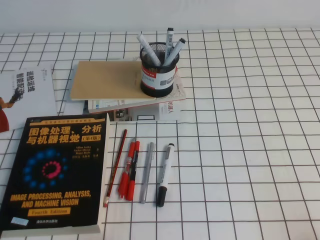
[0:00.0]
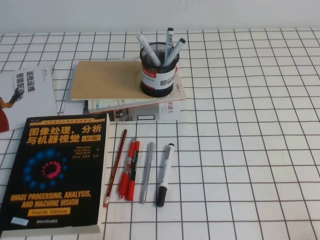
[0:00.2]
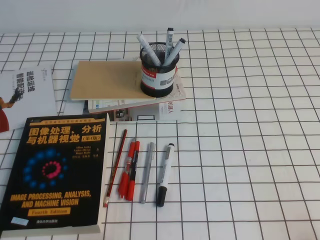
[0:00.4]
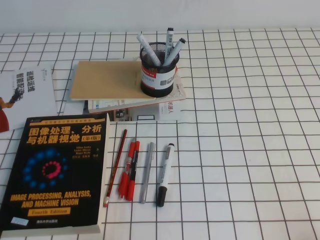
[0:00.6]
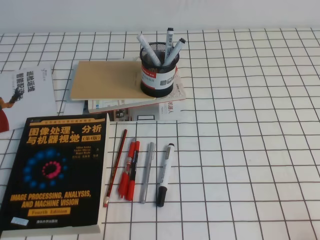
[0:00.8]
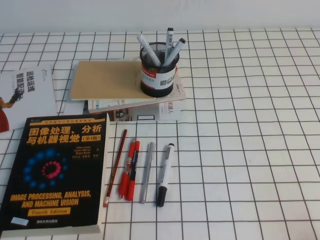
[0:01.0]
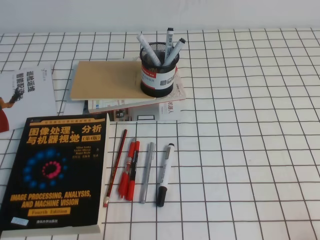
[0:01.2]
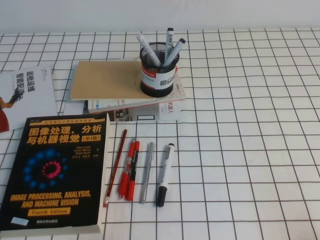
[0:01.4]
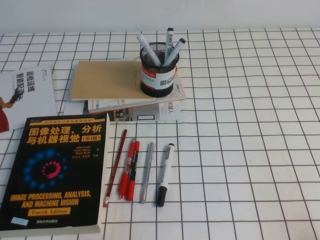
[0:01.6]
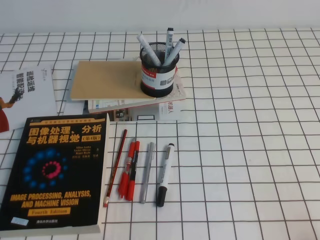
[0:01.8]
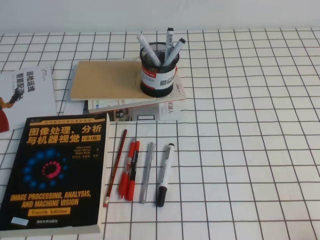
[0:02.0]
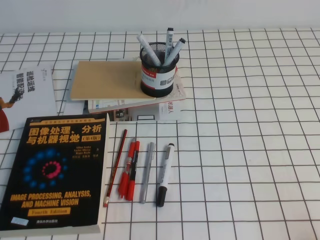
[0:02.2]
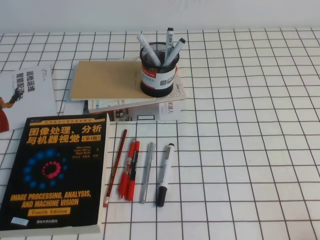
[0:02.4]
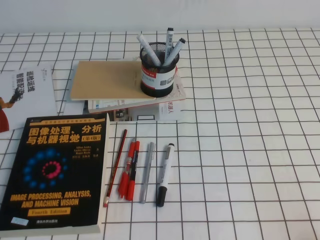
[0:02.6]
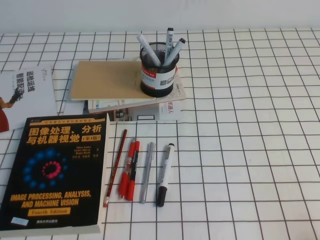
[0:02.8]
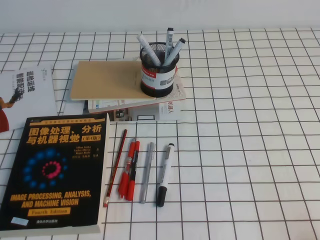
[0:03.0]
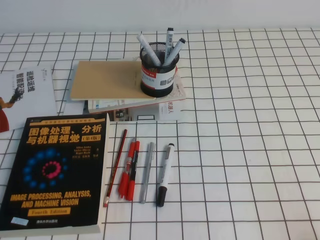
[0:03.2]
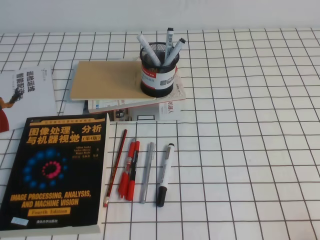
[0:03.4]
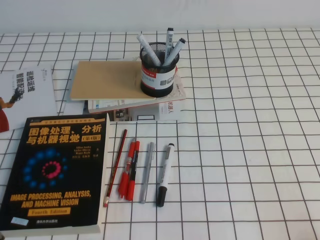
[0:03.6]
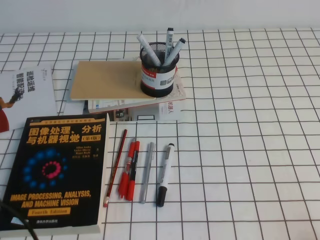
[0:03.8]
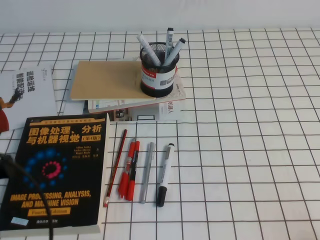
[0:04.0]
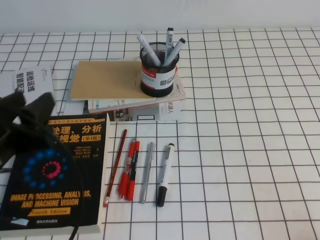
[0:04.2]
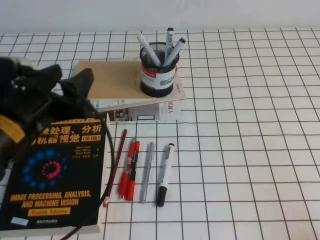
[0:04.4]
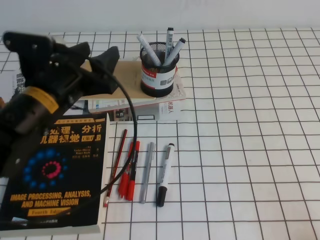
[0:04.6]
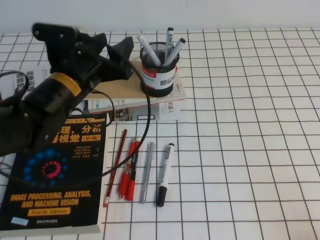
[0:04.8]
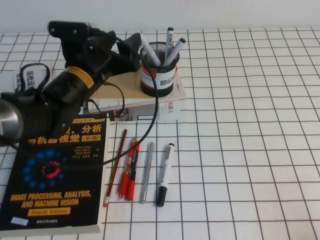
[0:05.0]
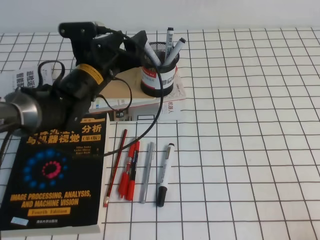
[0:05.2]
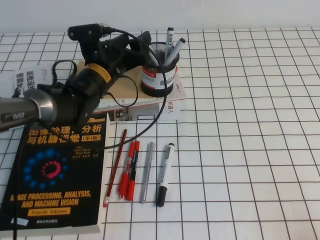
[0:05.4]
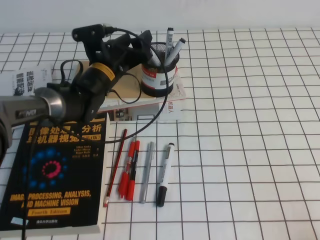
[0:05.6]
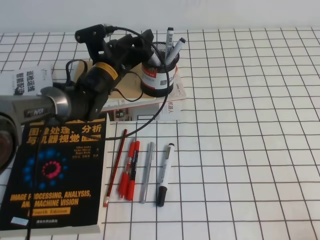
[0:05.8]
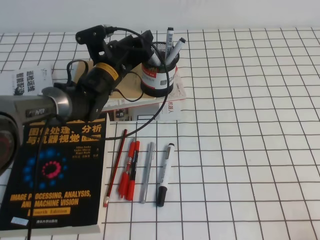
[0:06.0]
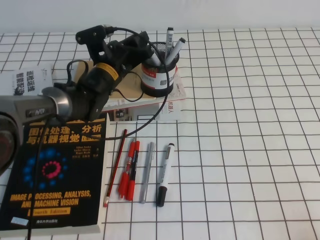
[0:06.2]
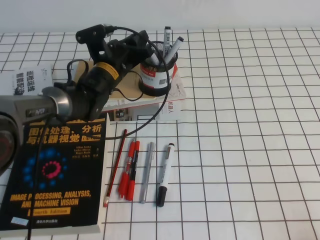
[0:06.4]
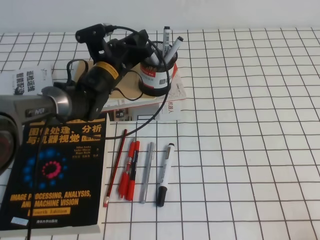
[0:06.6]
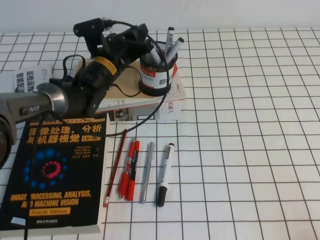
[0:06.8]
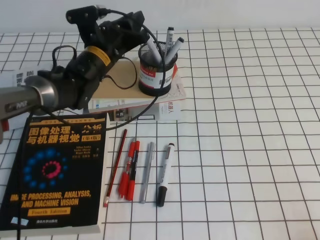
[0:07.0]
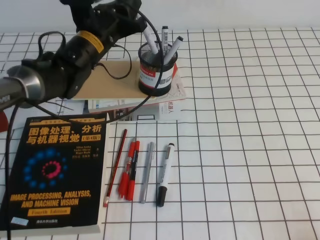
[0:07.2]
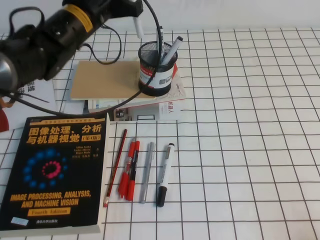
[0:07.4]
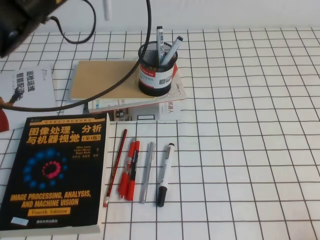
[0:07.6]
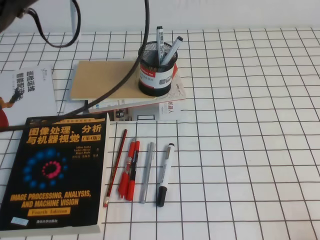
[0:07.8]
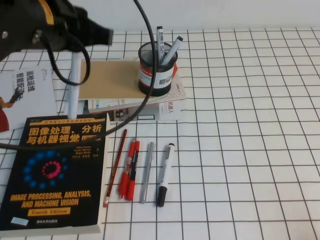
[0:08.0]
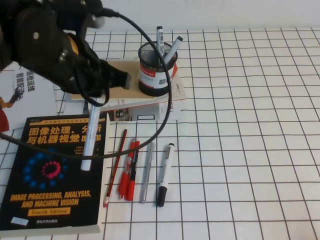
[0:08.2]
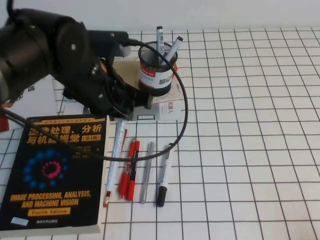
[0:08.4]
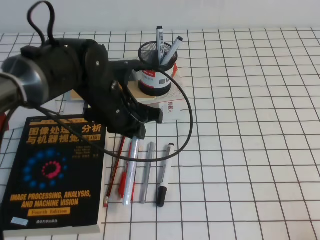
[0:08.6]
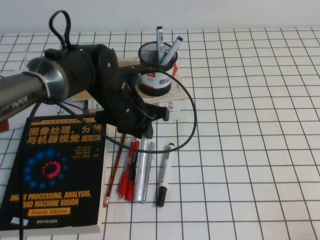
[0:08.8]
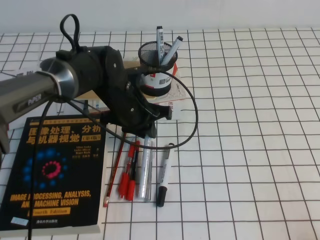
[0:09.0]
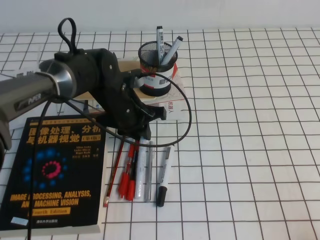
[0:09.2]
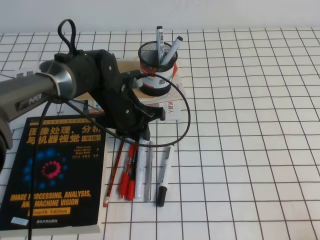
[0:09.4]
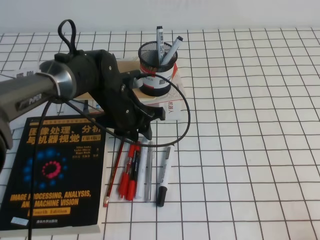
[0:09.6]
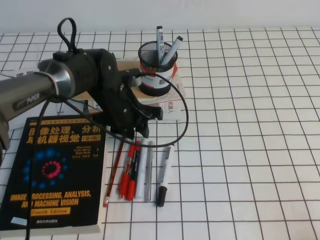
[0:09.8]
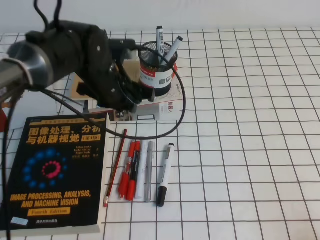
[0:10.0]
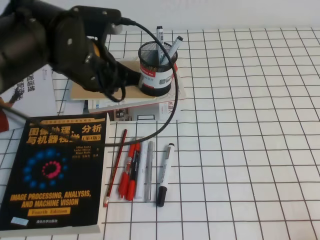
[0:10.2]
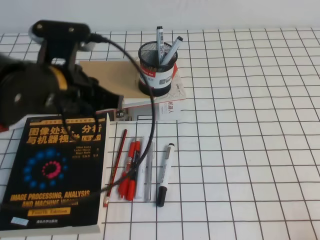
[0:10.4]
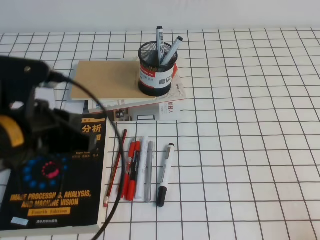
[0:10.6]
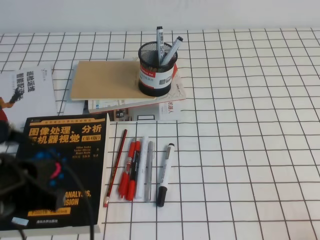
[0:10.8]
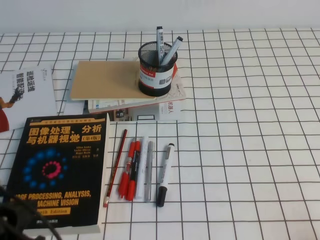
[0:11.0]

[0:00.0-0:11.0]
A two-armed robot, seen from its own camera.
0:03.2 to 0:04.8: The left gripper shifts about 30 cm forward and to the right, and opens its fingers.
0:04.8 to 0:06.2: The left gripper shifts roughly 15 cm forward and downward, and closes.
0:06.2 to 0:07.8: The left gripper heads upward and backward, covering approximately 25 cm.
0:07.8 to 0:09.4: The left gripper heads downward, covering approximately 25 cm.
0:09.4 to 0:11.0: The left gripper travels backward and to the left by roughly 30 cm.
